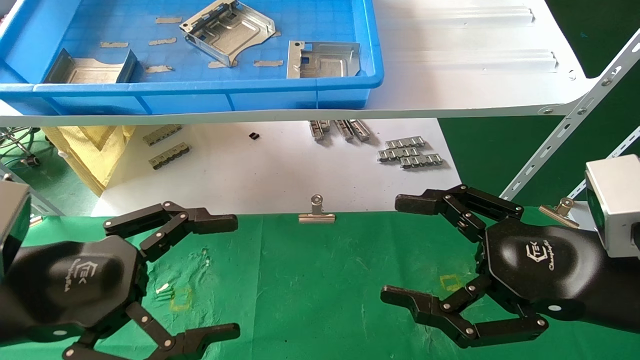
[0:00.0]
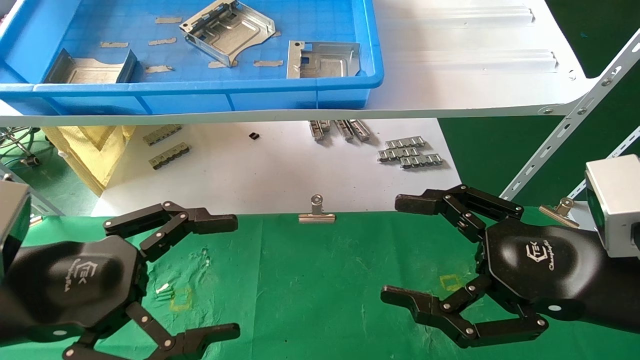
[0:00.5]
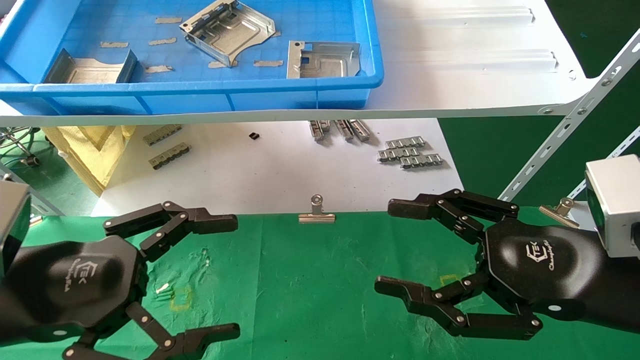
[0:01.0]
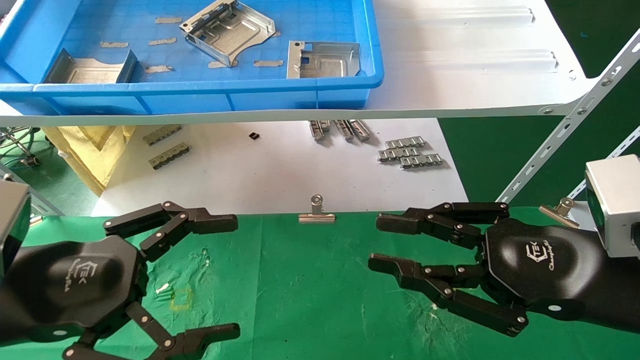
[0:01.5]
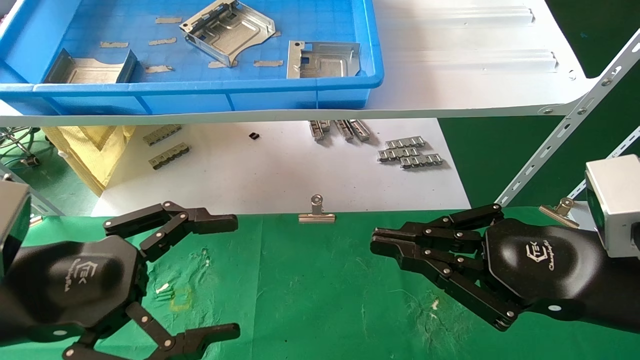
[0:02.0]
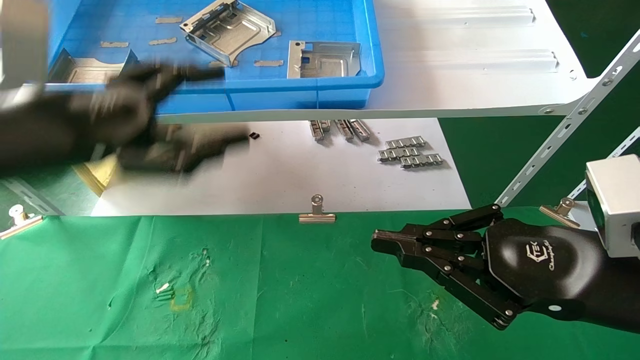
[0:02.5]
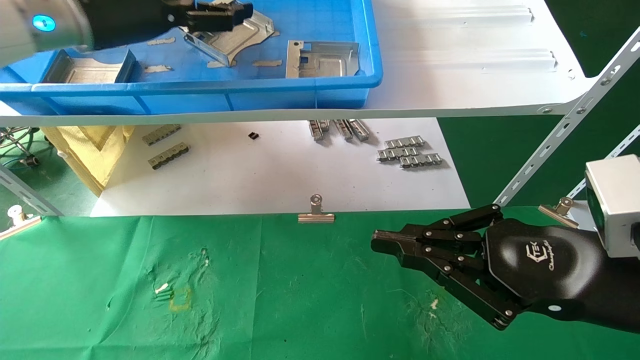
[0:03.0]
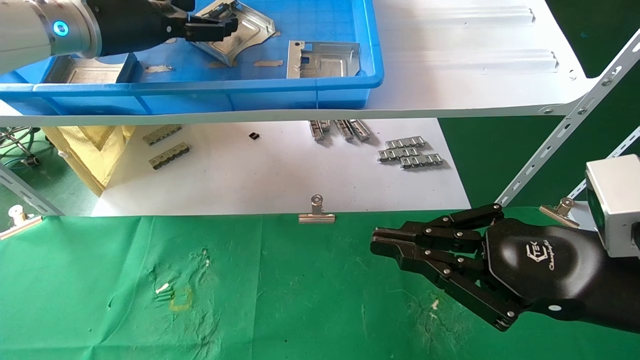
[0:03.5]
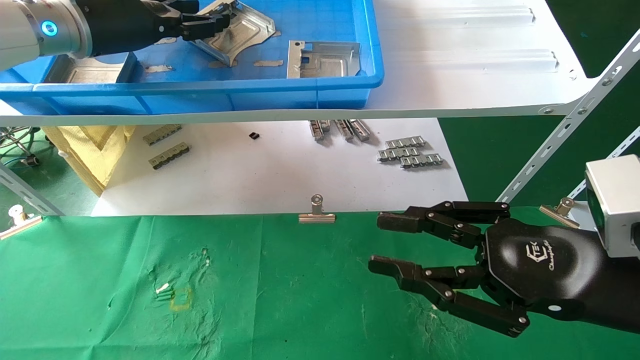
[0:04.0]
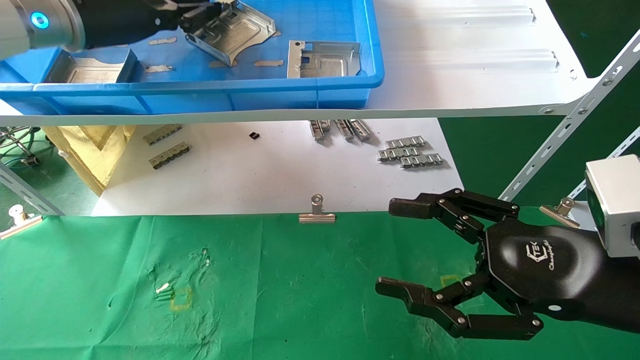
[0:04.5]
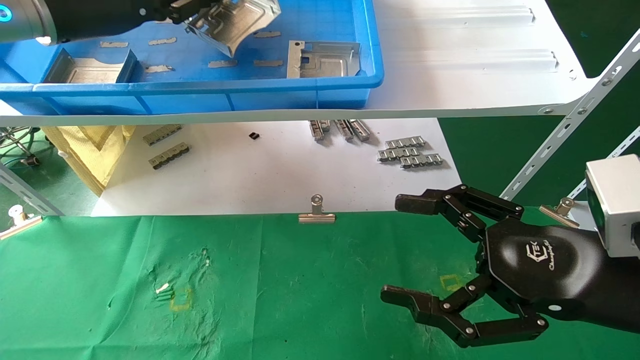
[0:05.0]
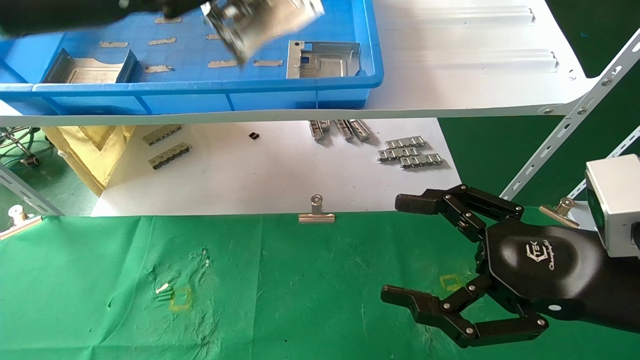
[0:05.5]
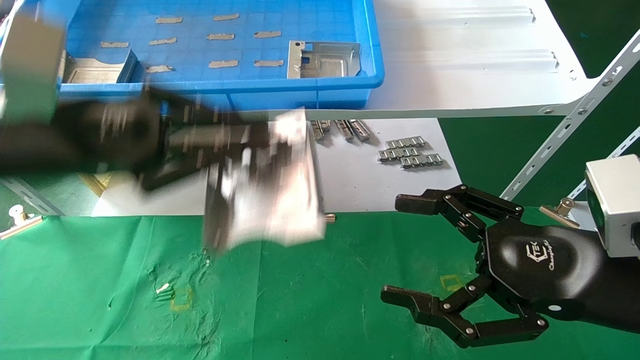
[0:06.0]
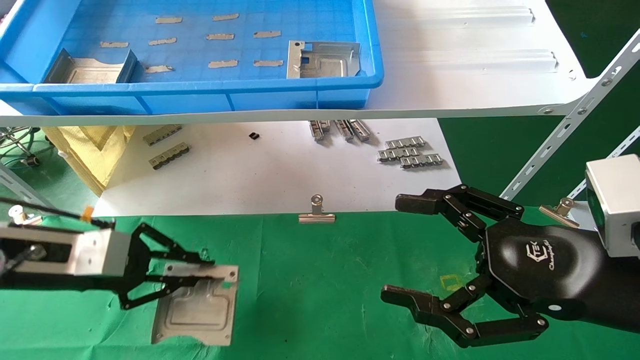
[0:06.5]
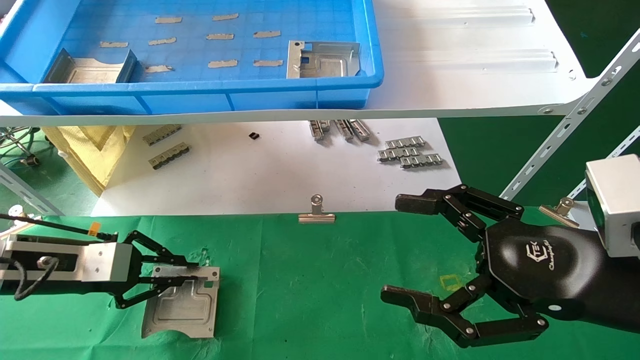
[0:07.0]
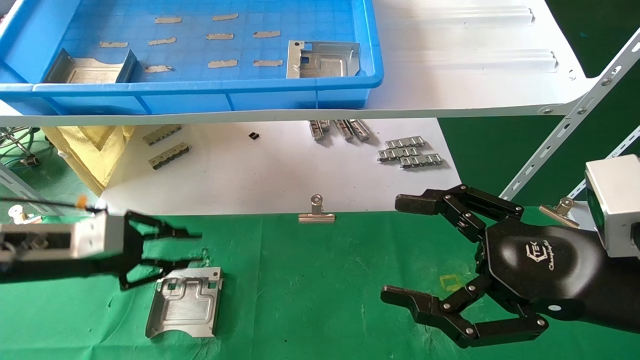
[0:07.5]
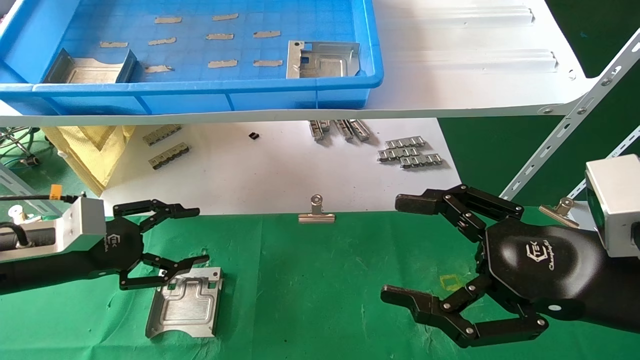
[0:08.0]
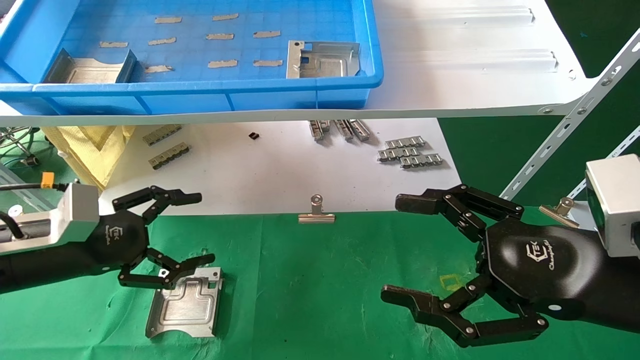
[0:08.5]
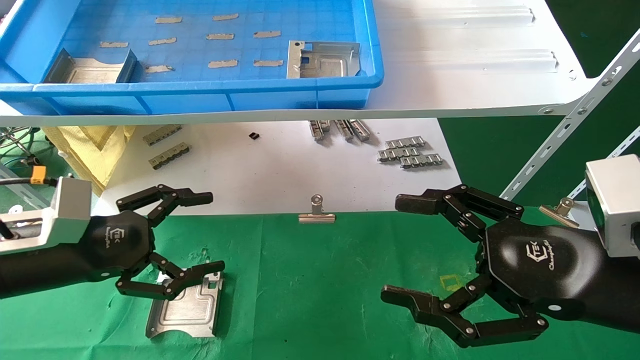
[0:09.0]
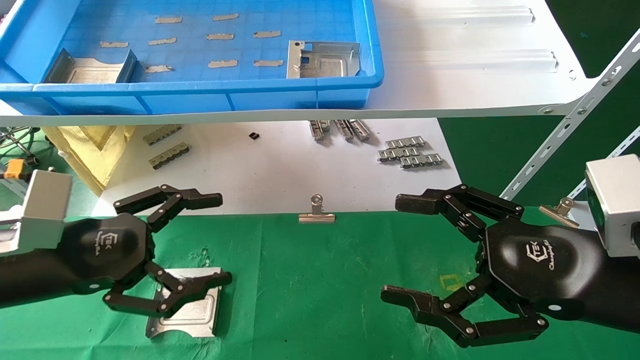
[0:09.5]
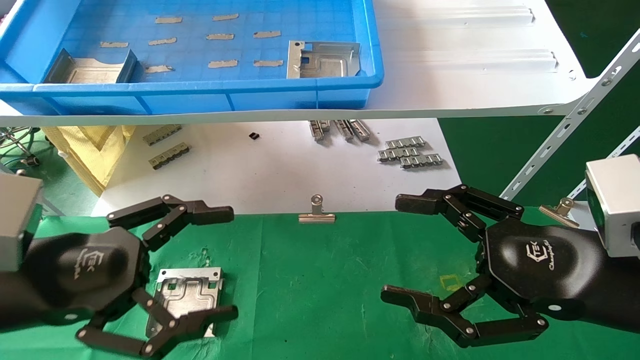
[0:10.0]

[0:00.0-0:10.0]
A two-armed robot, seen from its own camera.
Task of the whole recording: use the mechanical arm to pick up the parts and place them on the table.
Step, 0:03.0 to 0:04.5: Pick up the hard drive bracket from the feeding area.
Step, 0:05.0 to 0:07.0: Place the hard drive bracket into the box.
0:00.0 to 0:02.0: The right gripper closes.
0:02.0 to 0:04.0: The left gripper shifts approximately 30 cm forward and upward.
0:04.0 to 0:06.0: The left gripper heads backward and downward, covering approximately 20 cm, and closes its fingers, while the right gripper opens its fingers.
0:06.0 to 0:08.0: The left gripper moves downward and to the left, some 15 cm, and opens its fingers.
0:08.0 to 0:10.0: The left gripper travels backward and to the right by some 15 cm, and opens up.

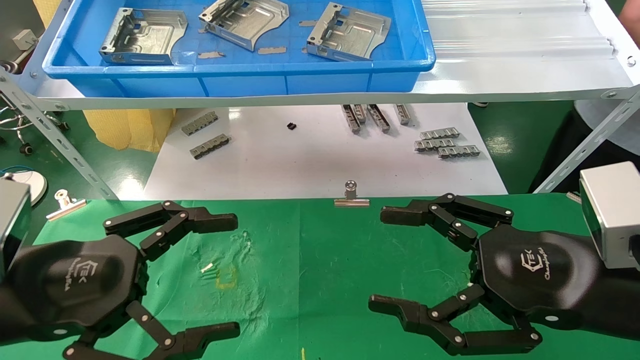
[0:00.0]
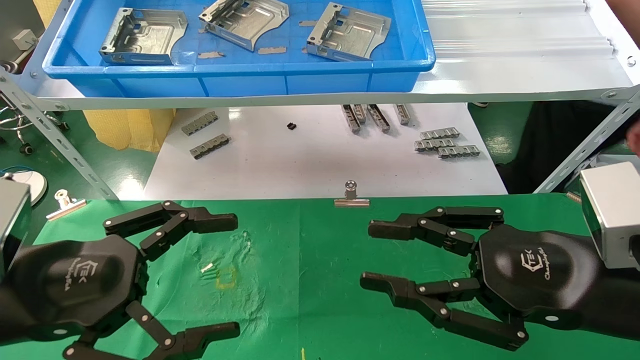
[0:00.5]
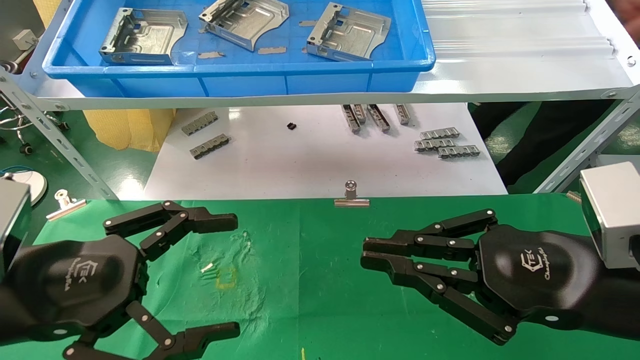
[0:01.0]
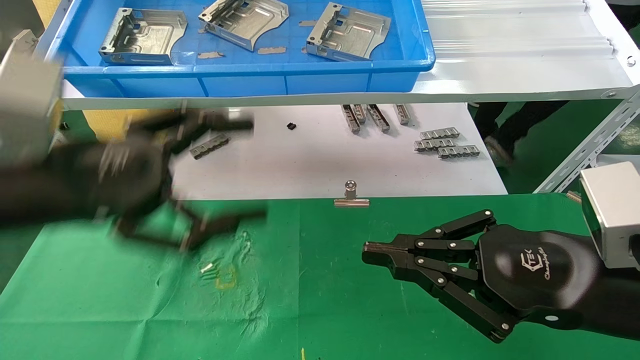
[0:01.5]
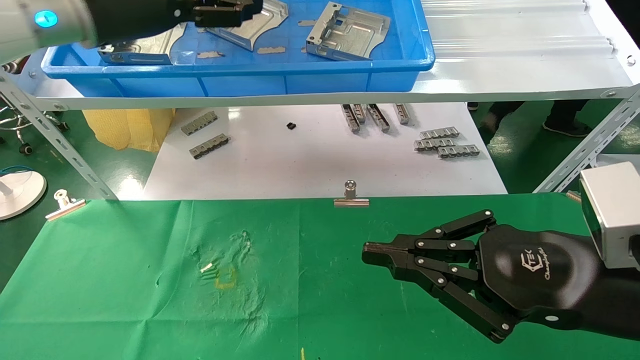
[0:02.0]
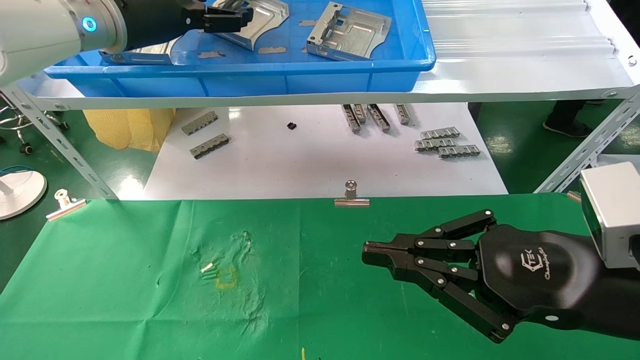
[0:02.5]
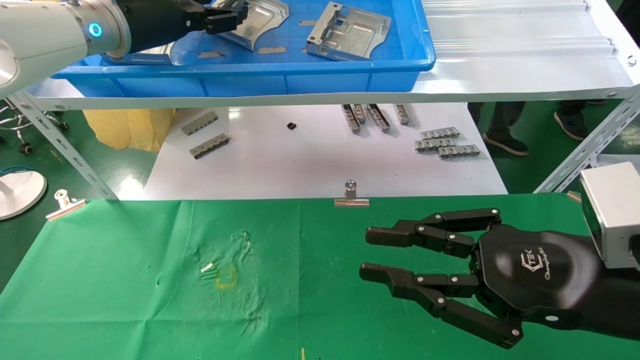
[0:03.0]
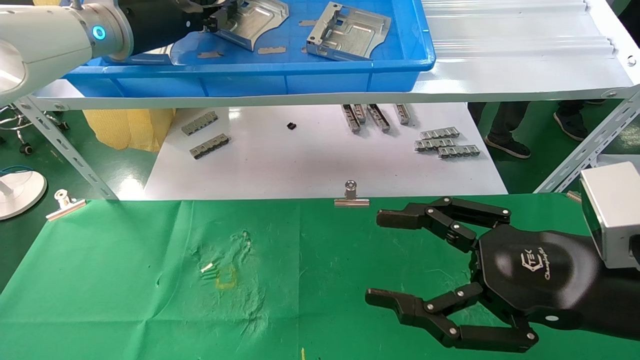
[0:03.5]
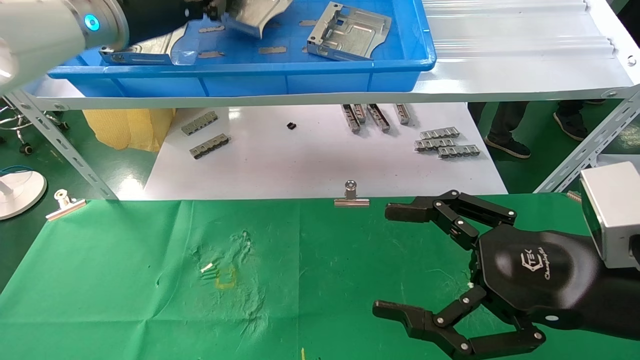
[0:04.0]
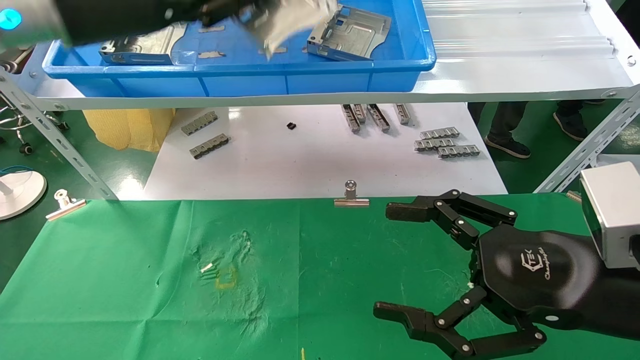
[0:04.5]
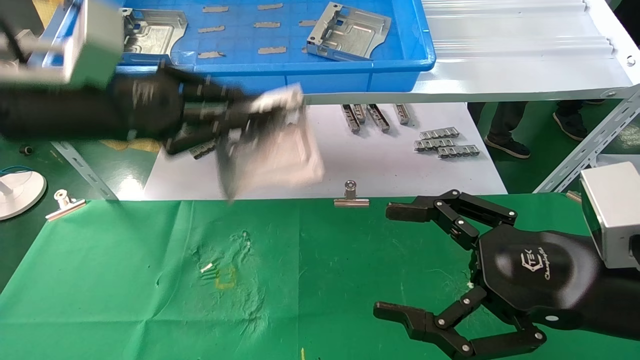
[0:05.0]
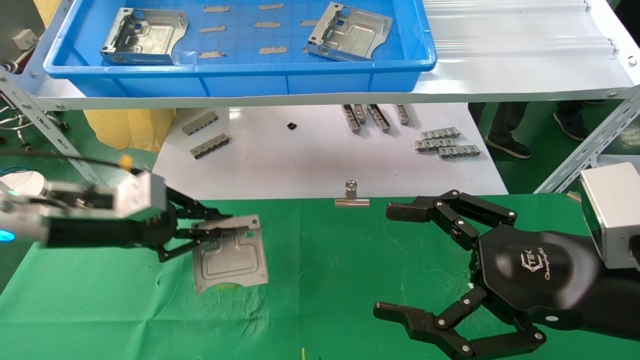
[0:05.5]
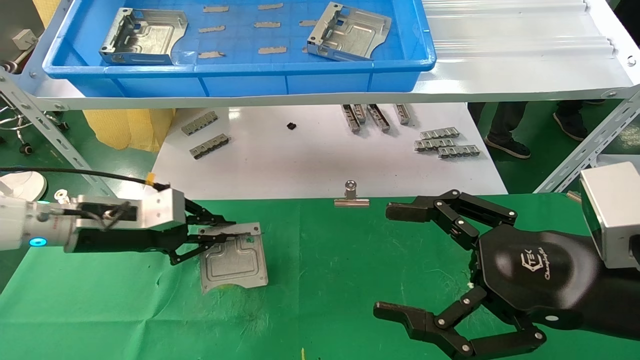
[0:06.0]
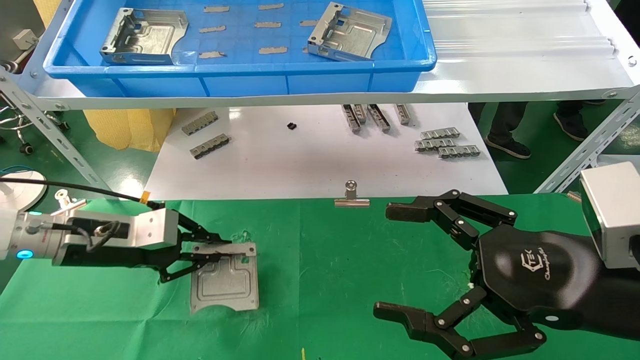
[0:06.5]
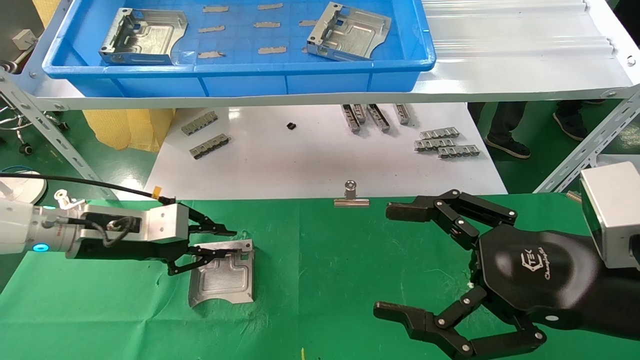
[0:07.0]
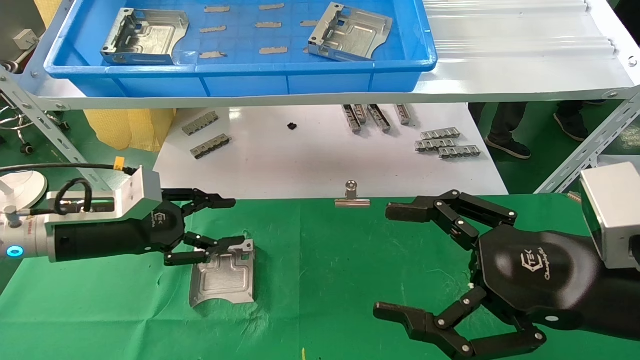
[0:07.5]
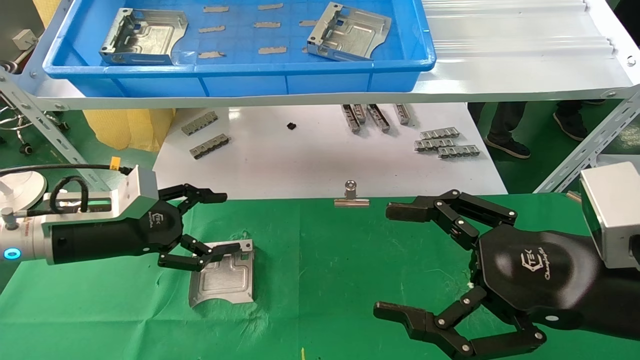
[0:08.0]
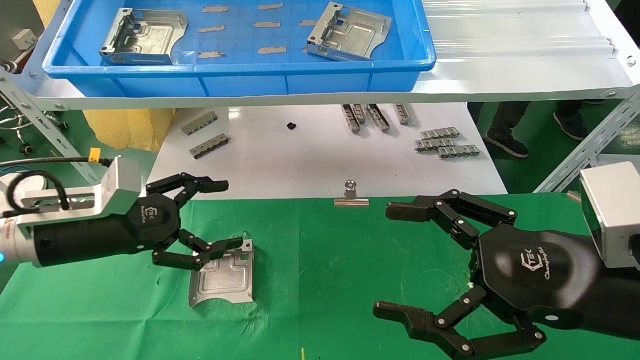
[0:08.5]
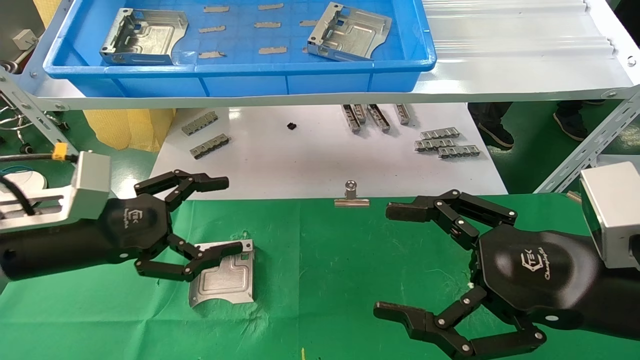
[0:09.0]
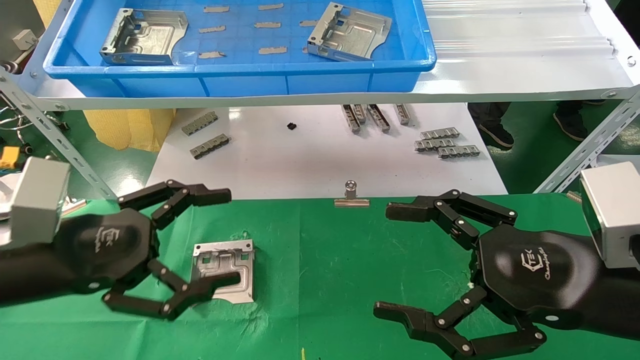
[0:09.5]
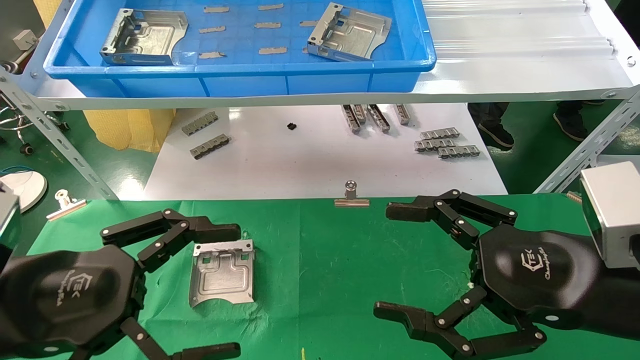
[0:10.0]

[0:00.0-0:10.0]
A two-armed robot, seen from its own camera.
Task of the whole recording: use the mechanical arm to pick up the parts and place them on the table.
Step, 0:01.5 to 0:03.5: Pick up the hard drive bracket from the feeding area.
Step, 0:04.0 to 0:07.0: Place the hard drive bracket into the box.
0:00.0 to 0:02.0: The left gripper is displaced upward and forward by approximately 30 cm. Meanwhile the right gripper closes its fingers.
0:02.0 to 0:04.0: The right gripper opens; the left gripper closes up.
0:04.0 to 0:06.0: The left gripper heads downward, covering about 25 cm.
0:06.0 to 0:08.0: The left gripper opens up.
0:08.0 to 0:10.0: The left gripper travels backward by roughly 15 cm.
